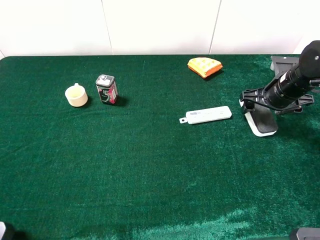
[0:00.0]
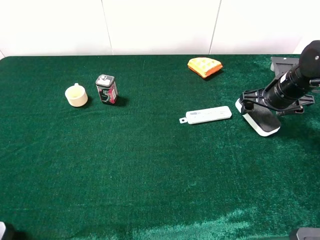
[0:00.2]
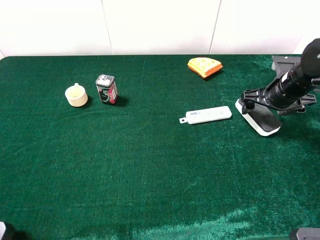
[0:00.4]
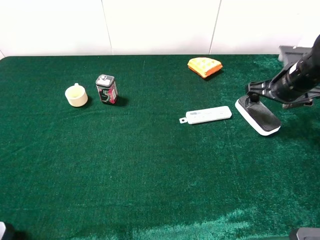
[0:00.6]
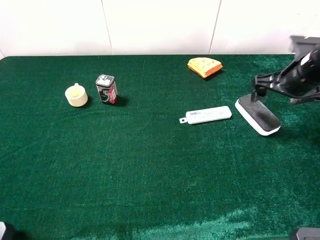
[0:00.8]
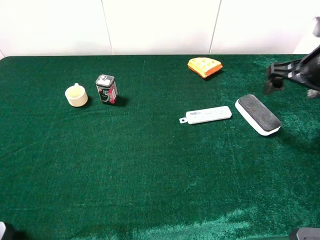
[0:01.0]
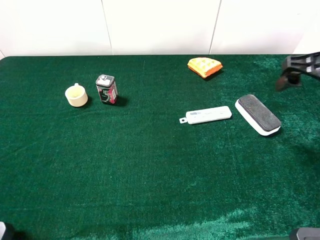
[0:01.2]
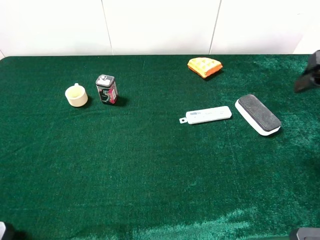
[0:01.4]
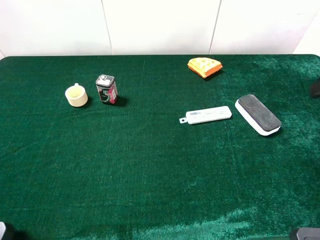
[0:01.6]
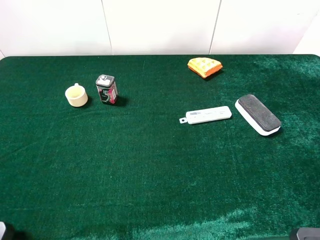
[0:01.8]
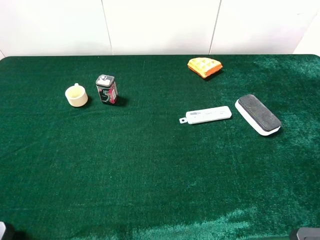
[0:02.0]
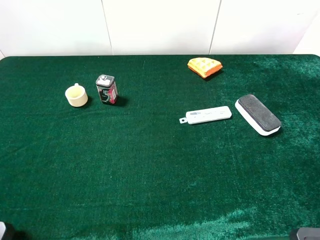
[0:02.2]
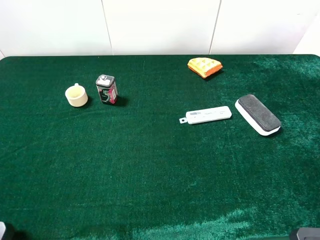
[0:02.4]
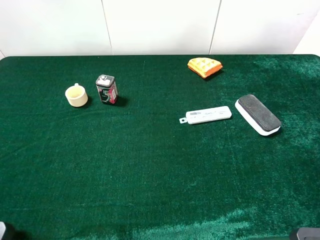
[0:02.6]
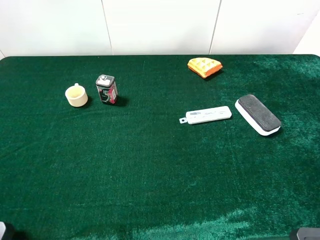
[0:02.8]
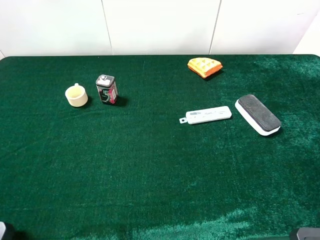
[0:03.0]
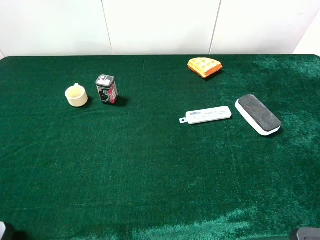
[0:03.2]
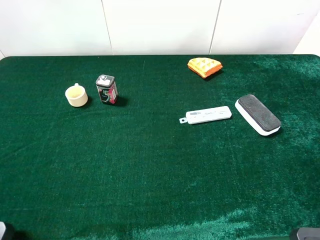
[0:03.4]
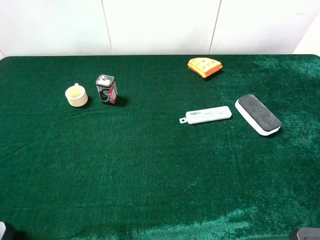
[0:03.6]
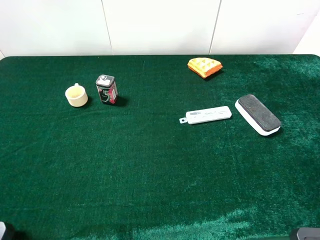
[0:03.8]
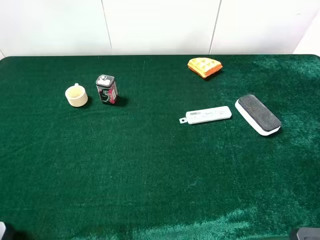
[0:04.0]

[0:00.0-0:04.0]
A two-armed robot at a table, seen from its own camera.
Task of the whole recording: the gripper move the object.
0:00.0 to 0:01.4: The right gripper moves upward and backward, roughly 20 cm.
